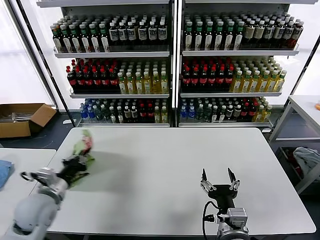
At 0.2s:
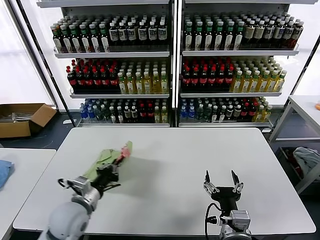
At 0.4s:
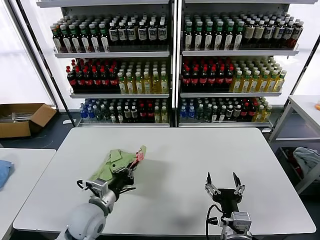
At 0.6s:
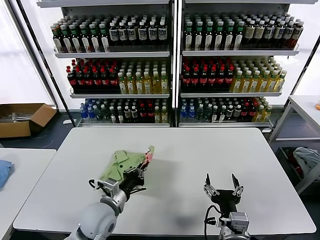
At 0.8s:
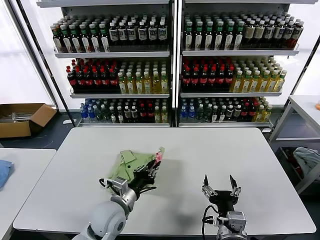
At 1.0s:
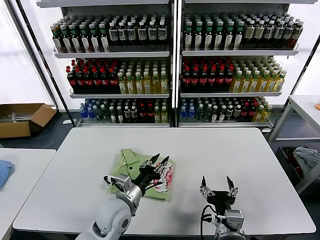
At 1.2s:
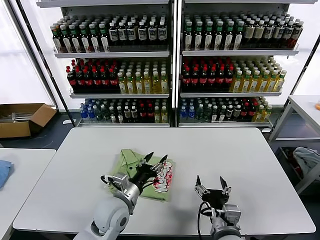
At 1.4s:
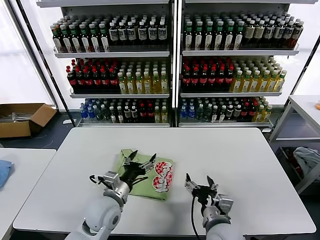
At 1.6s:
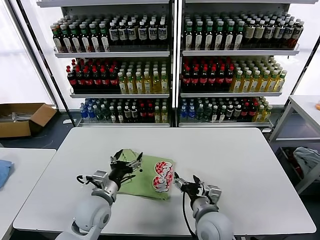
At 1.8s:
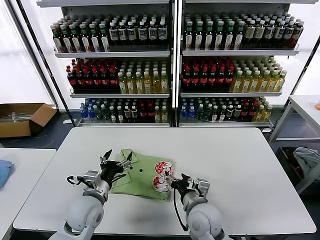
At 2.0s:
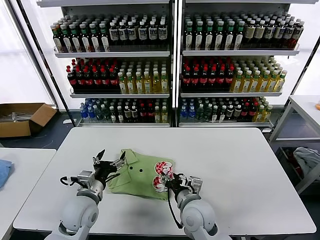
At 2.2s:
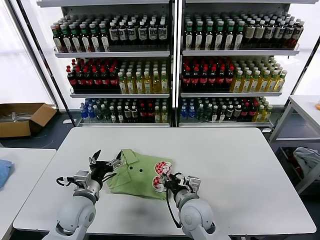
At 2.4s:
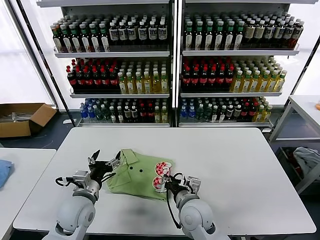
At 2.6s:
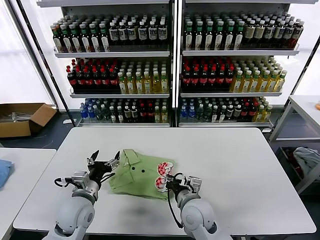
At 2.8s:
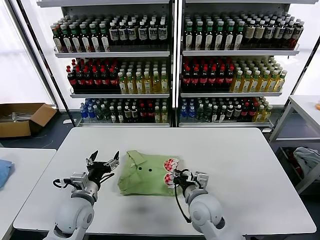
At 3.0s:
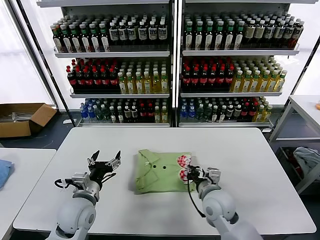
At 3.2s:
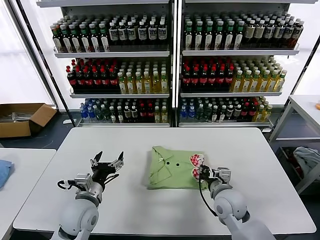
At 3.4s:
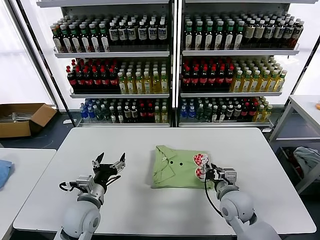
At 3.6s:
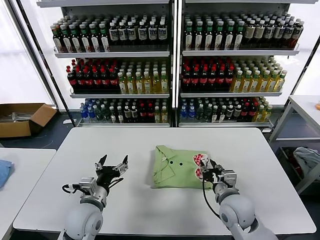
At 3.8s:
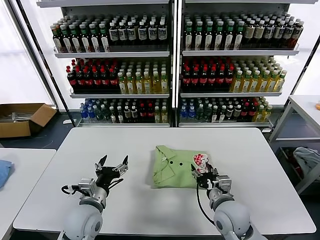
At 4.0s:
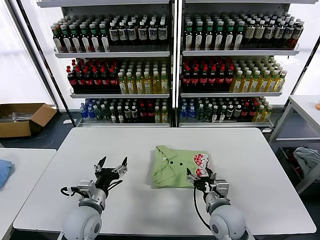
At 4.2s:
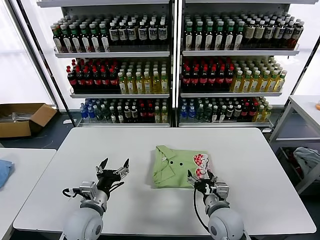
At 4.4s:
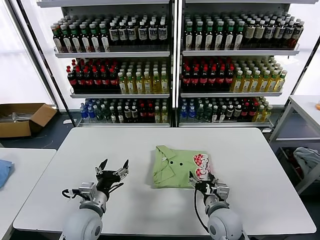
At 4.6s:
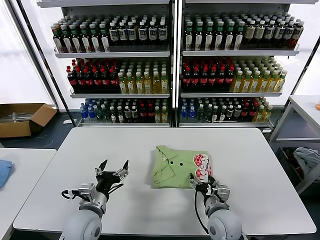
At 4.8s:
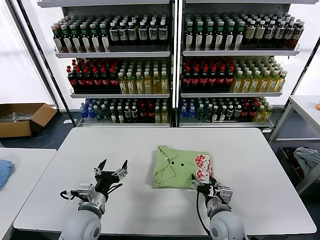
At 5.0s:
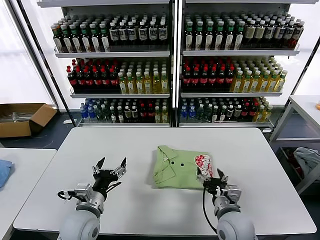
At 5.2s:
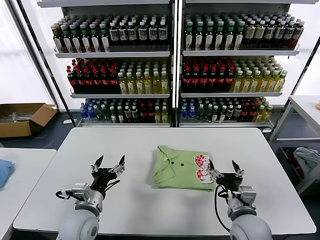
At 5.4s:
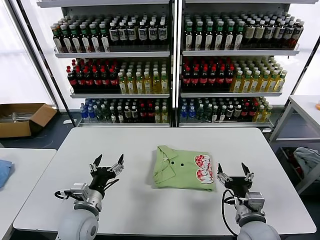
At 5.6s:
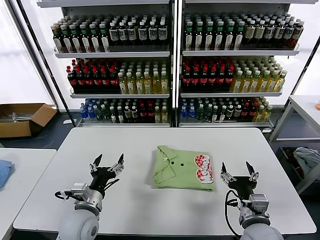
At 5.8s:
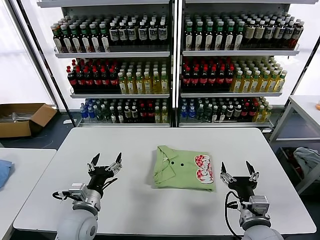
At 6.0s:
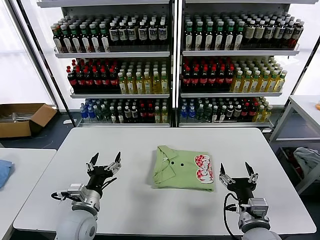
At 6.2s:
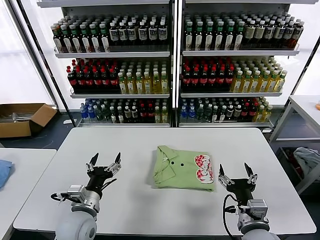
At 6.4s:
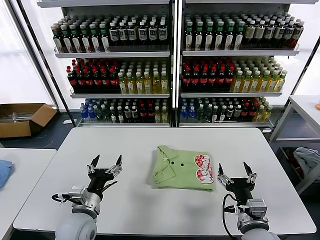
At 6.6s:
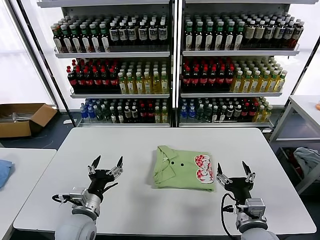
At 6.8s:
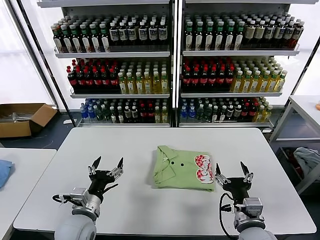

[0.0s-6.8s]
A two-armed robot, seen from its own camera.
Task of the whole recording: fold and organize the clothes.
Step, 1.2s to 5.0s: Drag the clothes to the center of the table.
0.0s to 1.4s: The left gripper shifts roughly 20 cm to the right, and opens.
1.4s to 2.8s: The left gripper shifts approximately 10 cm to the left; the right gripper heads forward, covering some 10 cm, and closes up.
2.8s to 4.0s: The right gripper shifts approximately 5 cm to the right, and opens.
4.0s to 5.4s: The right gripper goes approximately 10 cm to the right and backward.
5.4s to 6.8s: The grippers stay close to where they were, moving slightly.

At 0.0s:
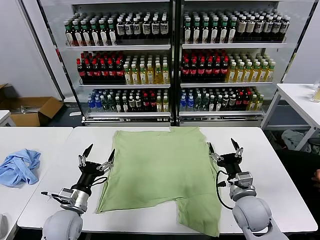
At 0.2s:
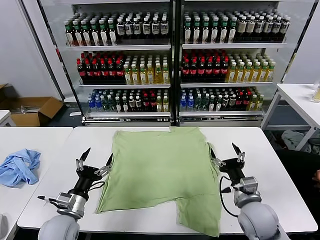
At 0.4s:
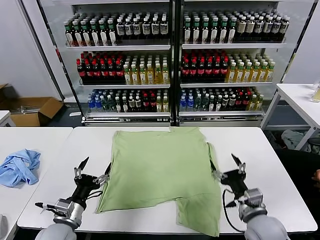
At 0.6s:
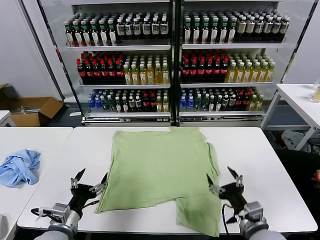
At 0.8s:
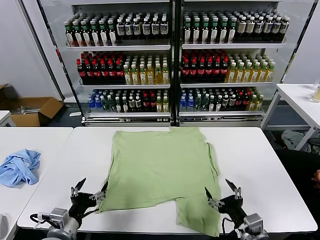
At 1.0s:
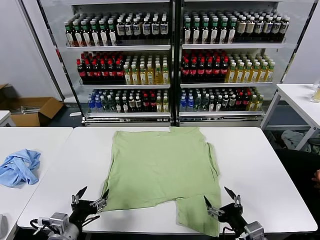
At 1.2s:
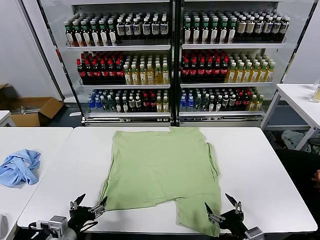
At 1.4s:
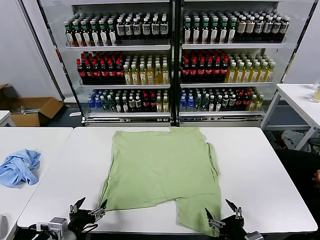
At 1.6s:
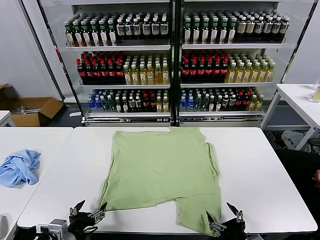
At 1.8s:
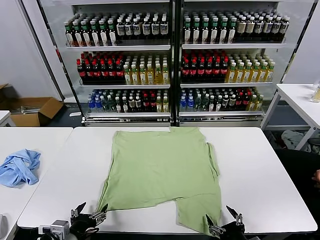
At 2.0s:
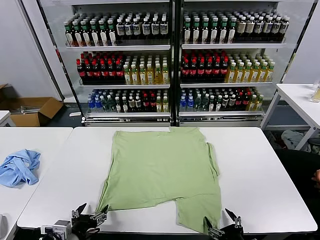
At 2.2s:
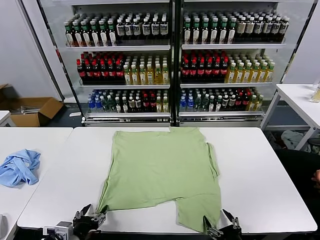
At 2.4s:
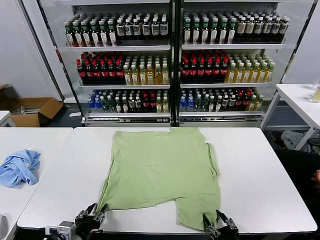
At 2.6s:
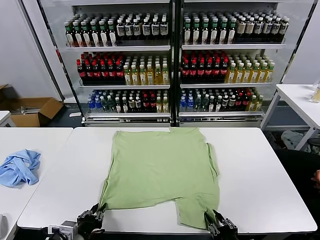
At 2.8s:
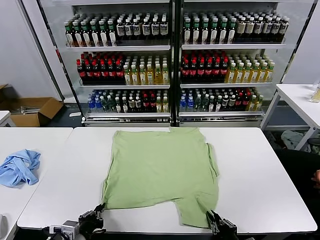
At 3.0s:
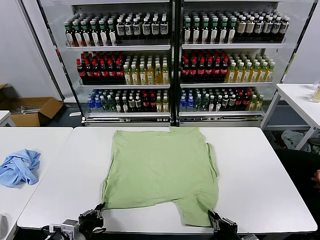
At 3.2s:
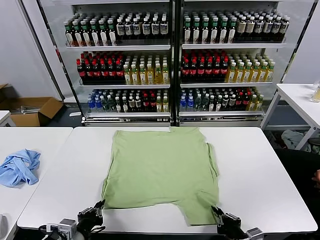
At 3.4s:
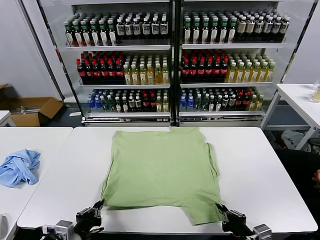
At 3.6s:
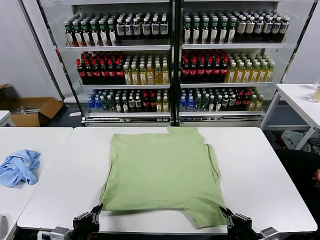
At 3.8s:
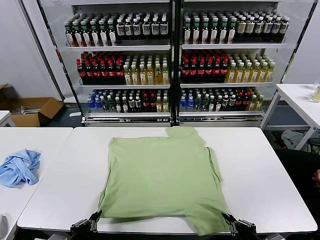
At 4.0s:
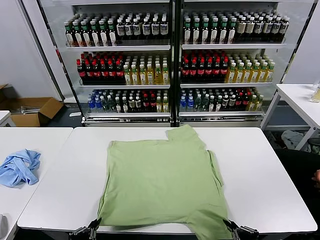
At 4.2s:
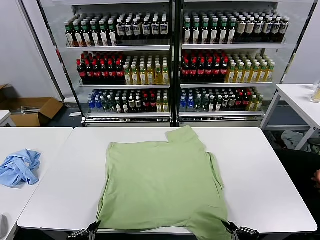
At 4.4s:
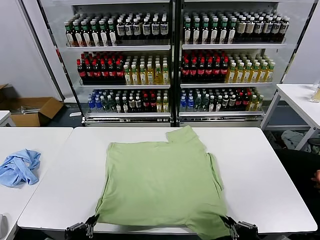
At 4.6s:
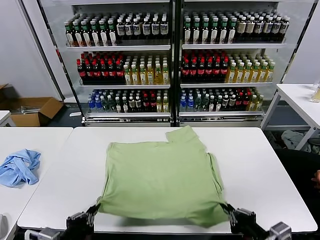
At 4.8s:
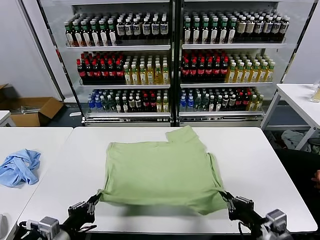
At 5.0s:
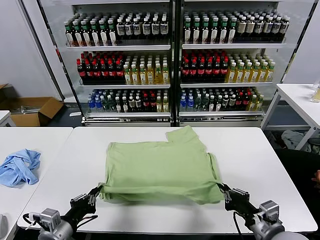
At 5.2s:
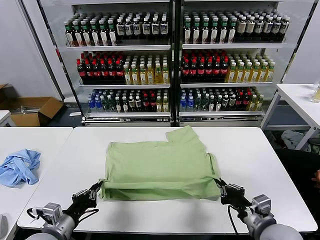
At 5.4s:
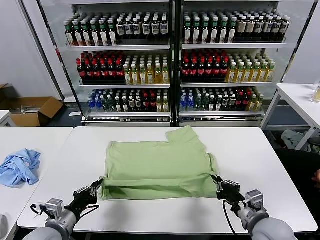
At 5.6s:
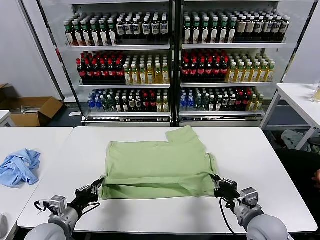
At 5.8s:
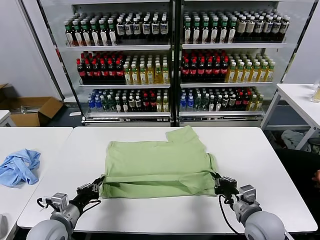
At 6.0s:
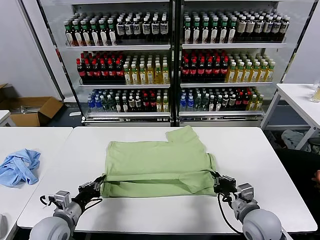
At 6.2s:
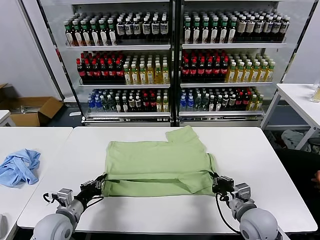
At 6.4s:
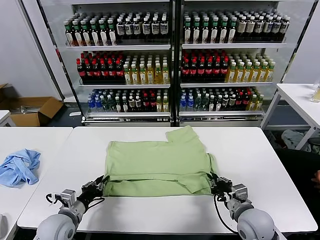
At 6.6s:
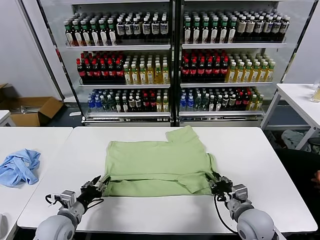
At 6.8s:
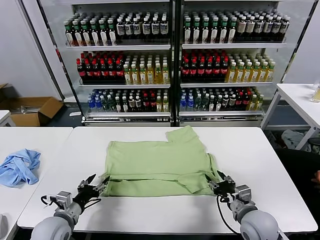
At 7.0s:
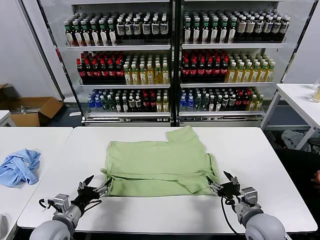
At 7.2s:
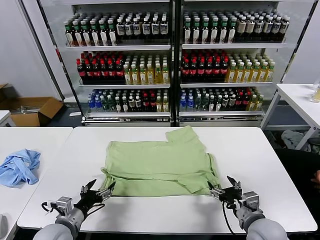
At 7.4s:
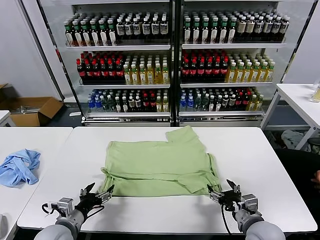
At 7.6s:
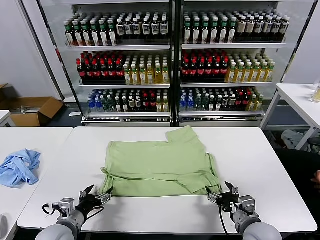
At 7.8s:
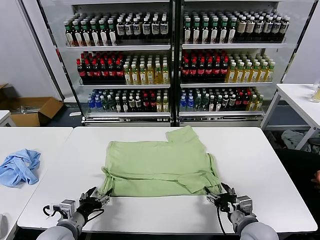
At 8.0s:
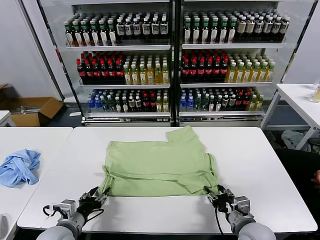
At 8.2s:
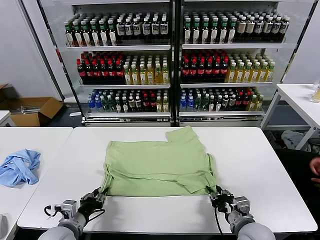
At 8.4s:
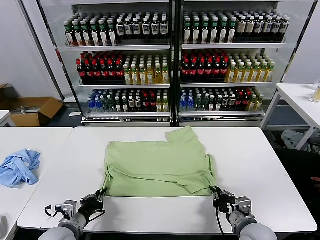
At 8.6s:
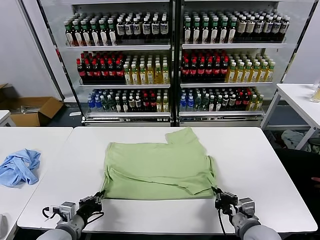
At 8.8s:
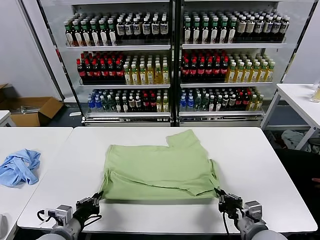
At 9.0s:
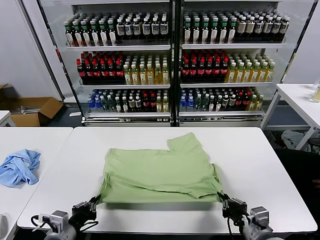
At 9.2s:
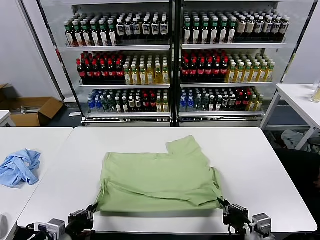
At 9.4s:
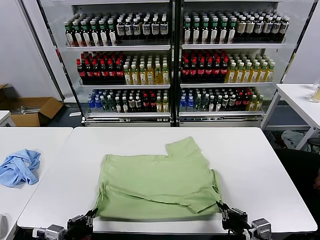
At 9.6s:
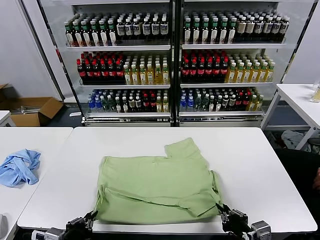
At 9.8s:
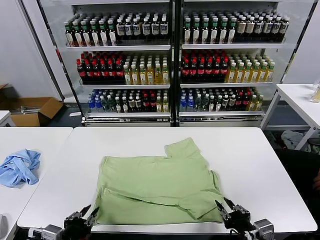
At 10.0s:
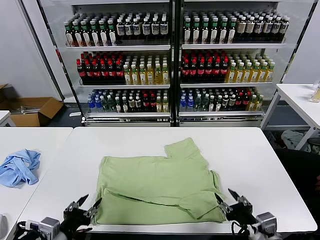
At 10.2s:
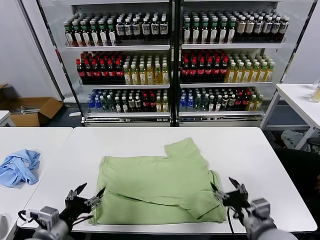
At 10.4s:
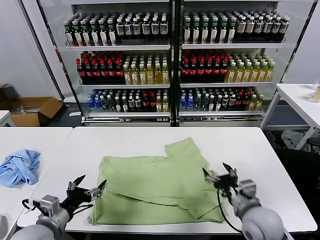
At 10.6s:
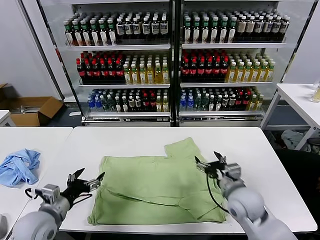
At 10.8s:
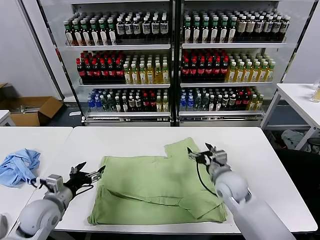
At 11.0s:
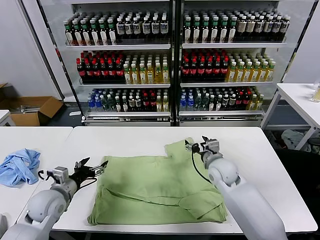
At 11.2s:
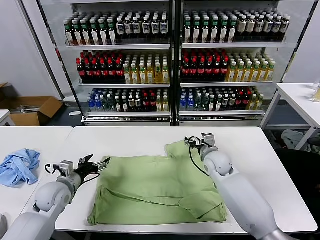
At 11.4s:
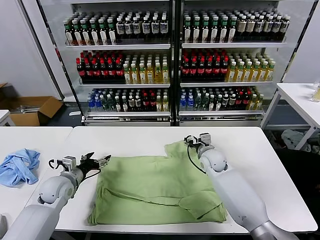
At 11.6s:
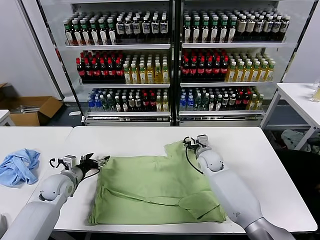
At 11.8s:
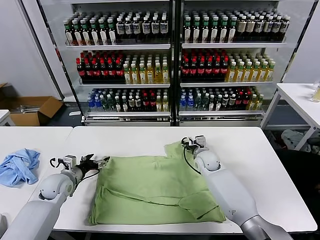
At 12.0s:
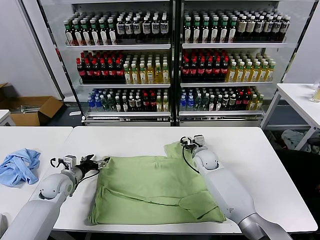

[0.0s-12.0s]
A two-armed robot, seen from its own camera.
Task of the whole recording: fold and organize the clothes.
Step, 0.0s to 3.2s: use both grippers simultaneously to clamp the lower edge of the clothing fabric.
Step, 3.4s to 6.6s: use both grippers to drag the lower edge of the fabric forward and fold it over the upper edge.
Step, 7.0s to 9.8s: Drag the clothes downward with both gripper.
1.6s to 3.0s: The left gripper closes. Meanwhile the right gripper closes its fingers.
3.0s to 4.4s: The right gripper shifts approximately 10 cm upward. The left gripper is displaced upward and backward by some 10 cm.
4.4s to 6.0s: Both grippers move forward and downward, roughly 15 cm.
6.0s to 7.6s: The left gripper opens its fingers, while the right gripper opens its fingers.
7.6s to 9.0s: The grippers both shift backward by approximately 5 cm. The left gripper closes up. The right gripper closes its fingers.
9.0s to 10.4s: The left gripper ends up about 5 cm from where it was, and opens its fingers. The right gripper goes approximately 10 cm forward, and opens its fingers.
10.4s to 12.0s: Both grippers travel together forward, about 20 cm.

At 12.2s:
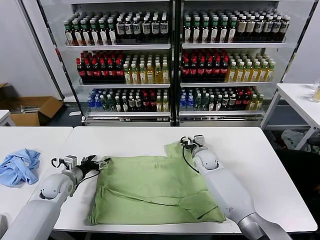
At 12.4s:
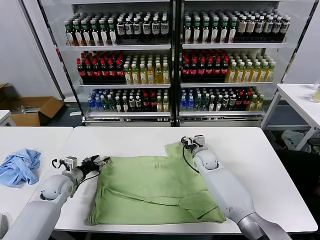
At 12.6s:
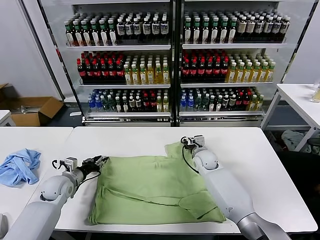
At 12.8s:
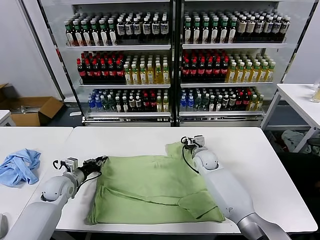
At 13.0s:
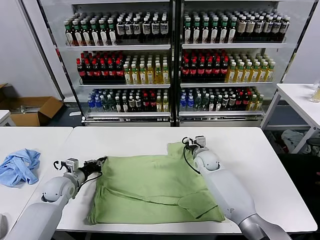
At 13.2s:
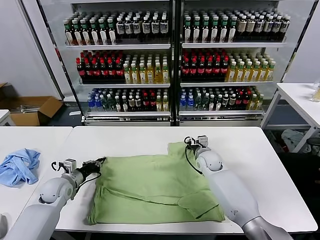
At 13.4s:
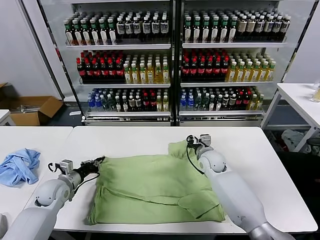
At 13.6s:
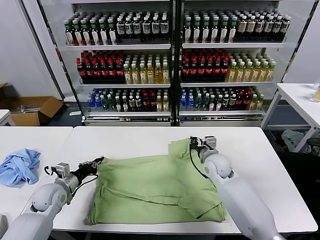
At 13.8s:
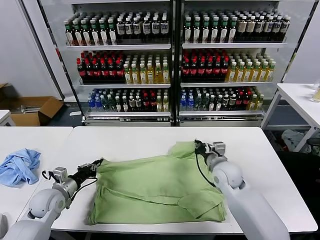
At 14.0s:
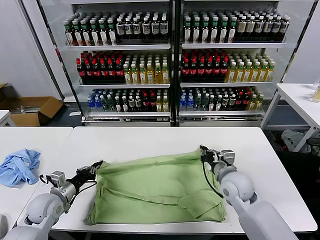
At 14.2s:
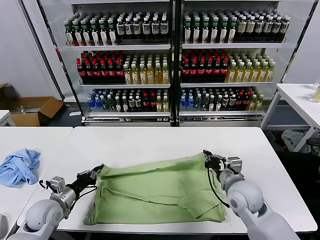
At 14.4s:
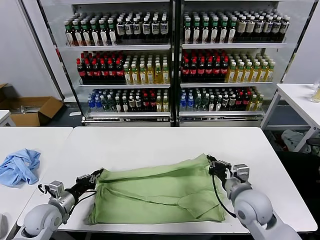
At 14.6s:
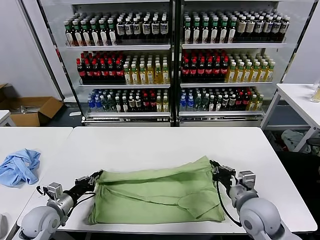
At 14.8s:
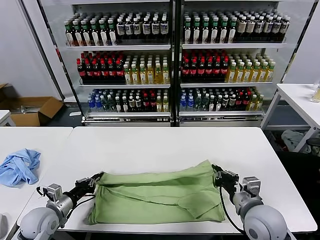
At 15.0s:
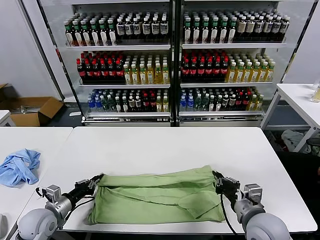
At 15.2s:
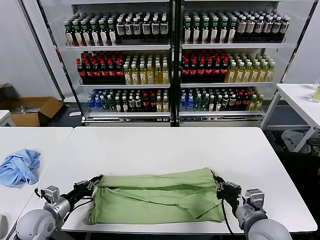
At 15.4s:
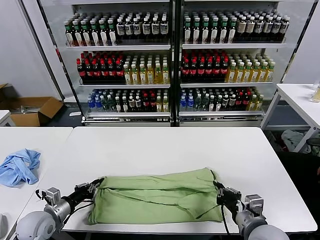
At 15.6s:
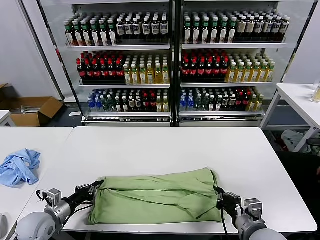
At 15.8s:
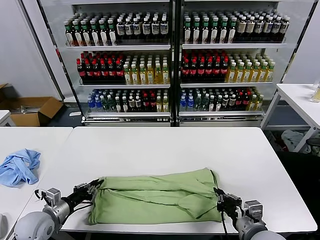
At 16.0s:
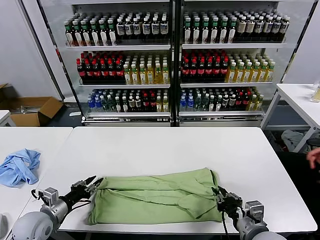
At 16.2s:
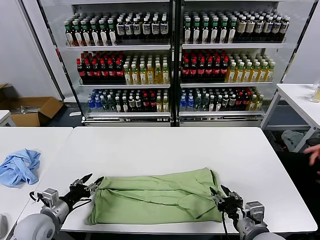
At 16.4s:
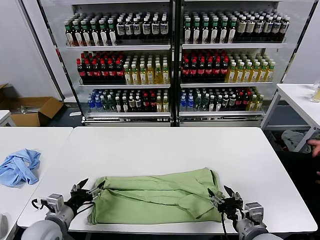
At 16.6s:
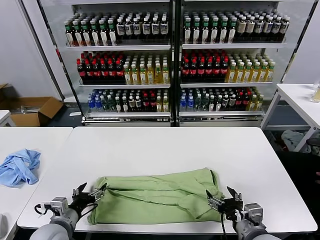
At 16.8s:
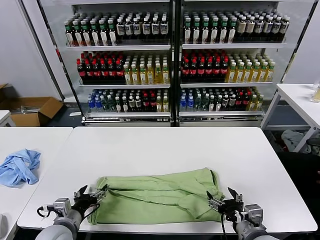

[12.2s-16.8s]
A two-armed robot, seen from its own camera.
Task of the whole recording: fold and organize the clothes.
Step, 13.2s to 16.2s: use both grippers to drag the upper edge of the fabric backward and fold it over the lower edge.
12.2s to 13.8s: The left gripper heads backward, covering roughly 5 cm, and closes its fingers. Meanwhile the right gripper moves backward and upward, about 15 cm, and closes.
13.8s to 15.2s: The right gripper travels backward by some 20 cm; the left gripper shifts roughly 5 cm backward.
15.2s to 16.8s: The right gripper opens; the left gripper is displaced to the right by roughly 10 cm, and opens its fingers.
